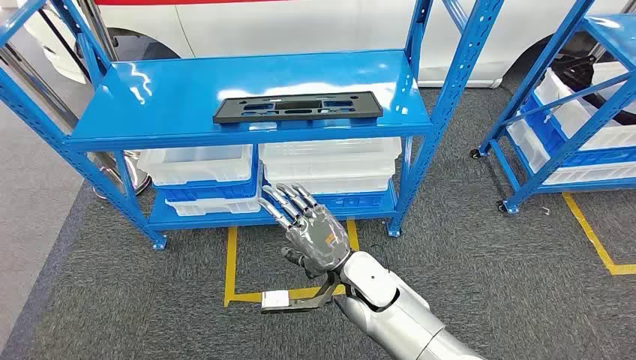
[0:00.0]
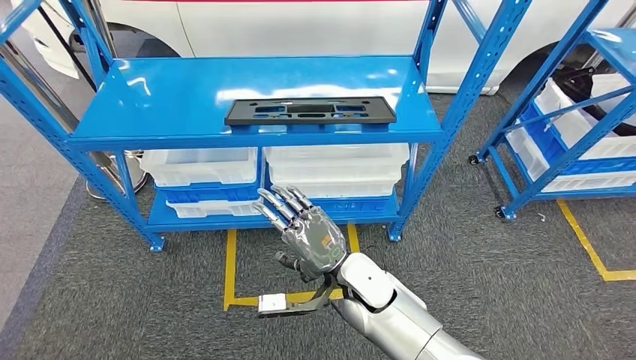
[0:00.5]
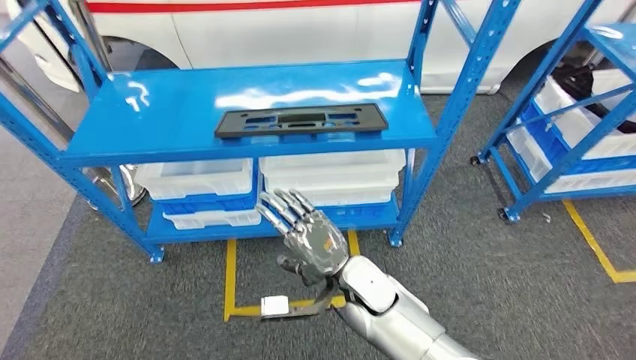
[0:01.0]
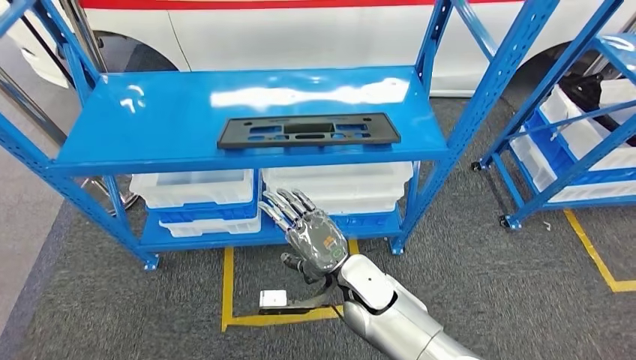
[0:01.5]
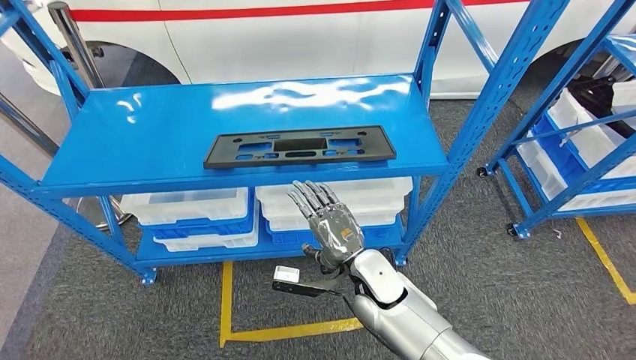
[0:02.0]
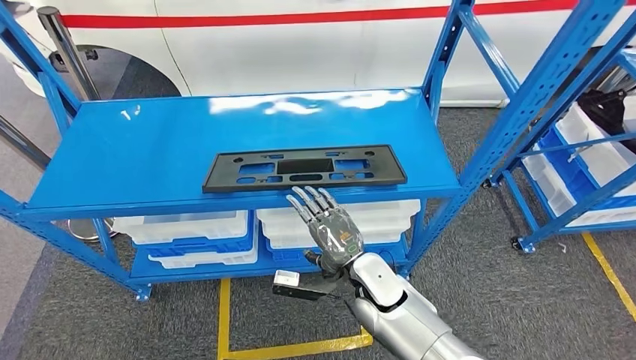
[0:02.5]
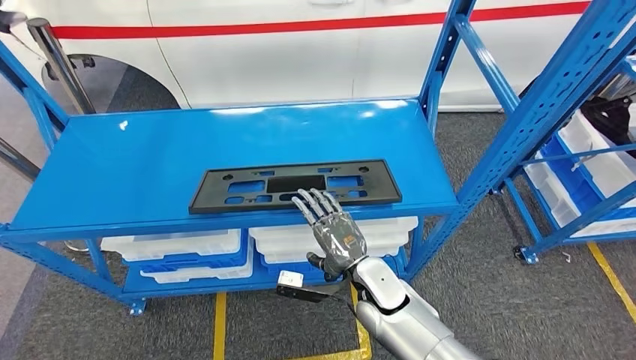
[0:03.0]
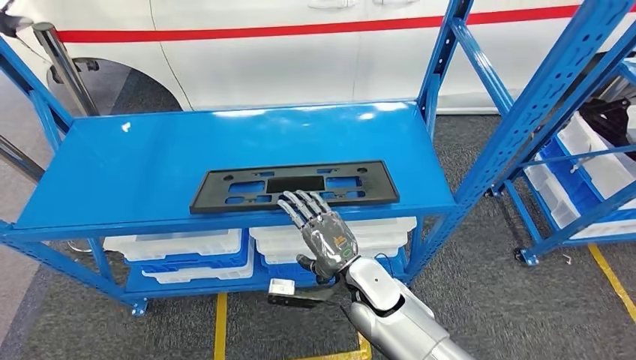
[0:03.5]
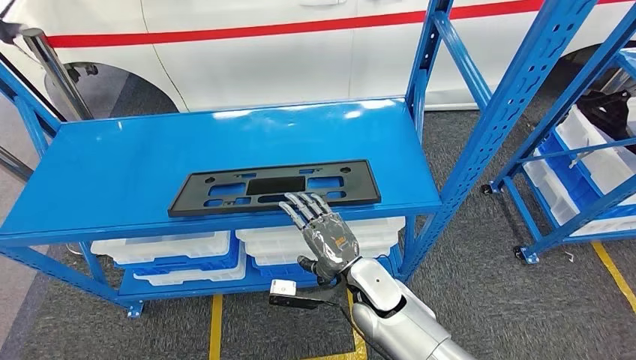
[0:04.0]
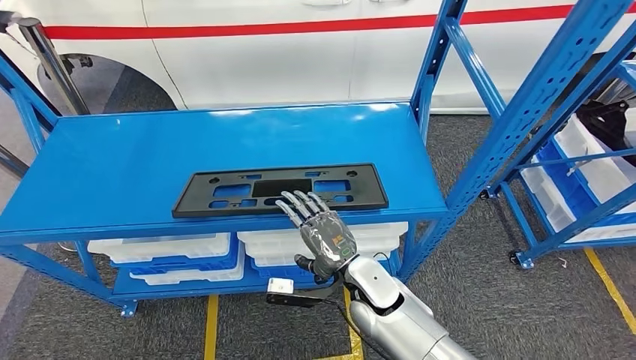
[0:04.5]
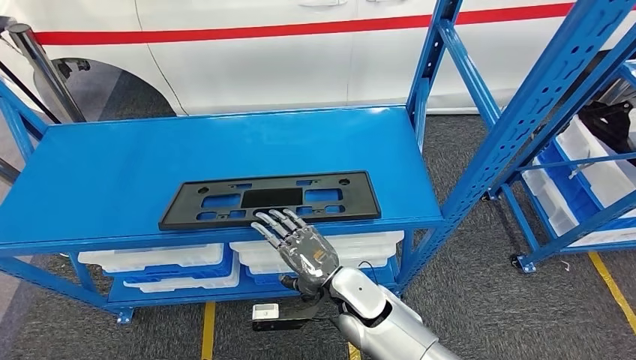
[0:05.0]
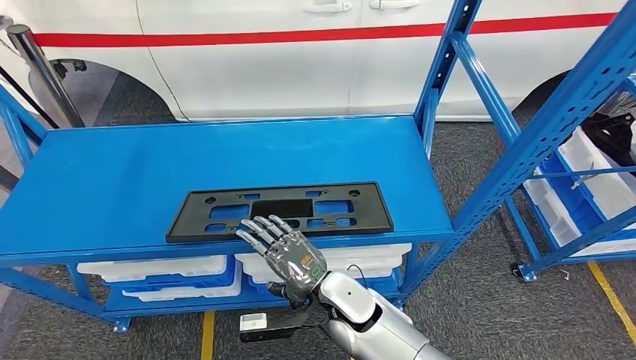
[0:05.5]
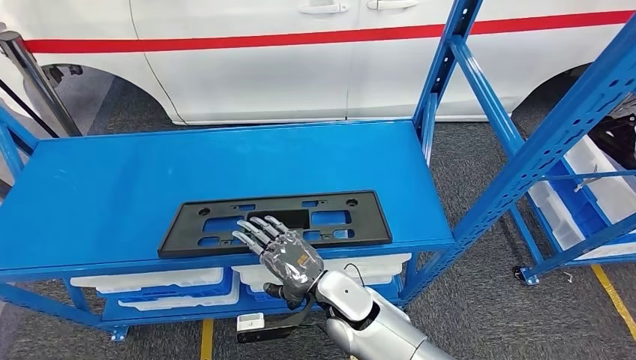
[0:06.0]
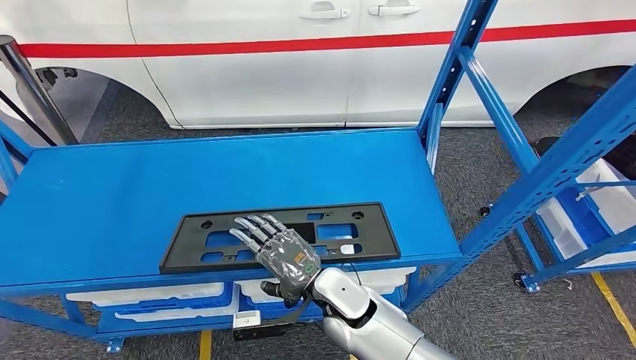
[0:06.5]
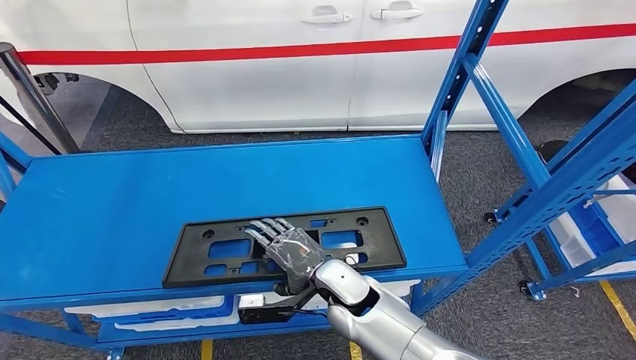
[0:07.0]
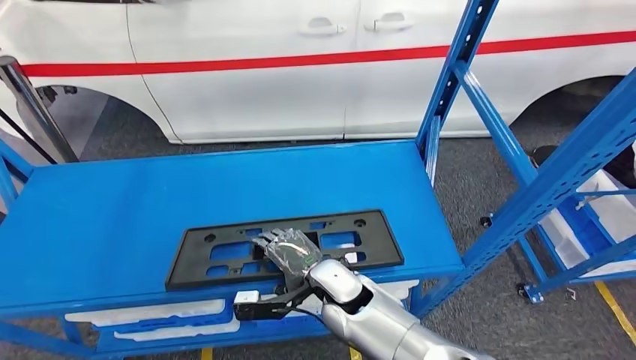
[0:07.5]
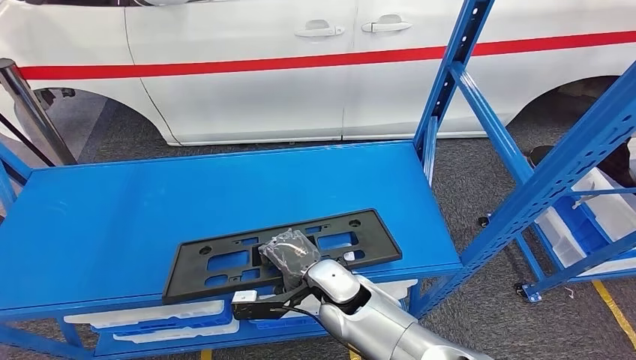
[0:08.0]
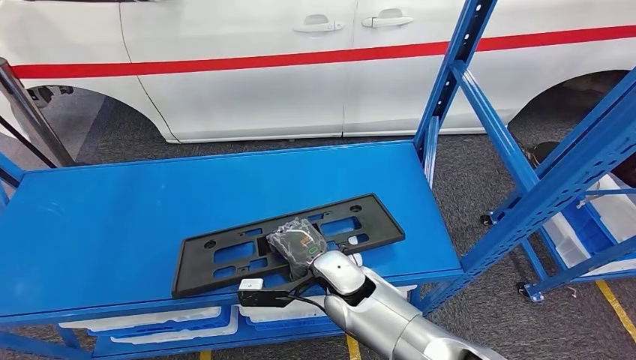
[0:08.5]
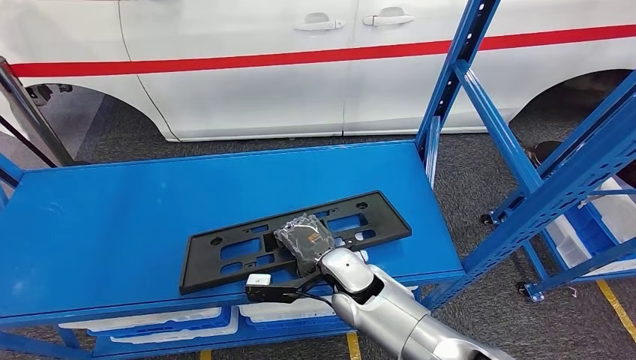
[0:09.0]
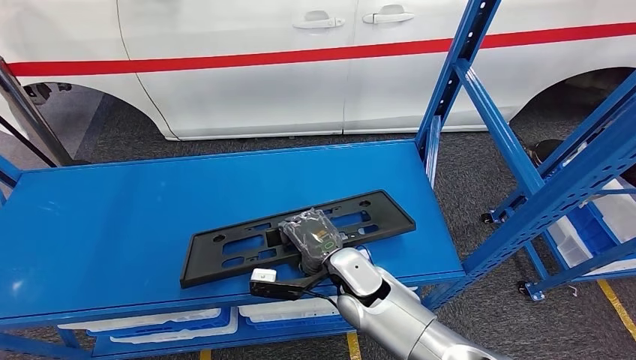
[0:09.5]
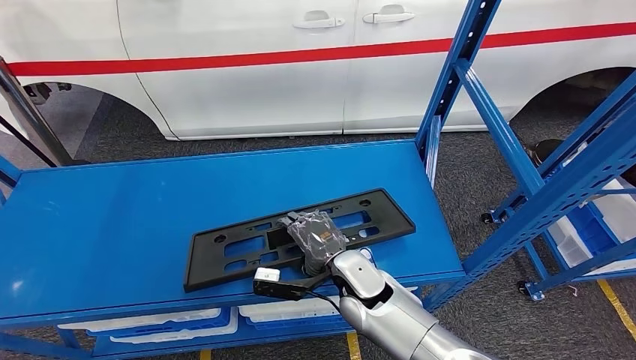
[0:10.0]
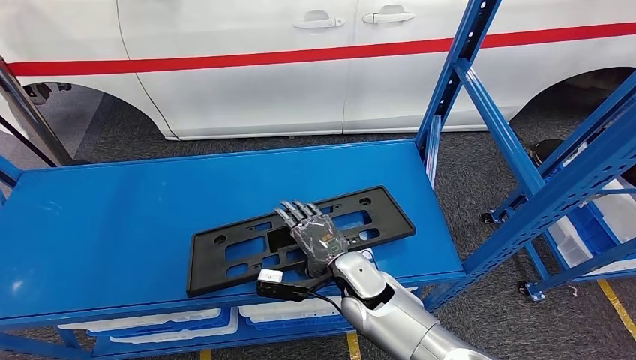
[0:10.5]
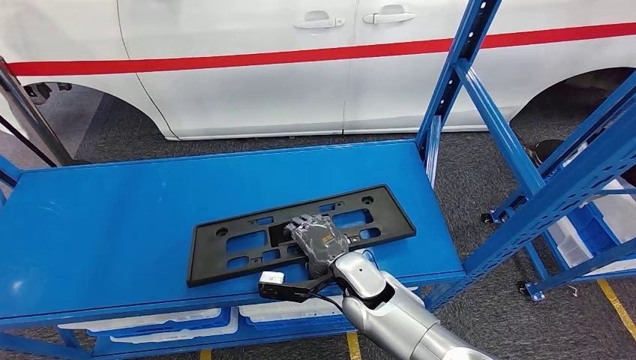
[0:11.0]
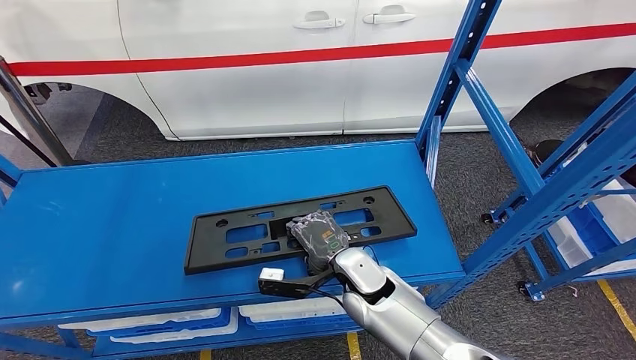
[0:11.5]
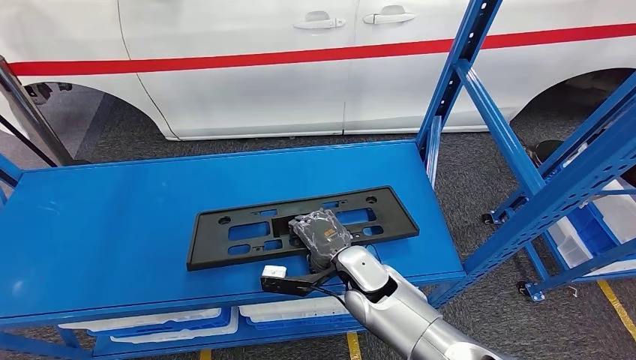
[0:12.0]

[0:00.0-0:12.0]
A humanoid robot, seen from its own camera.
0:10.0 to 0:12.0: The hands make only small movements.

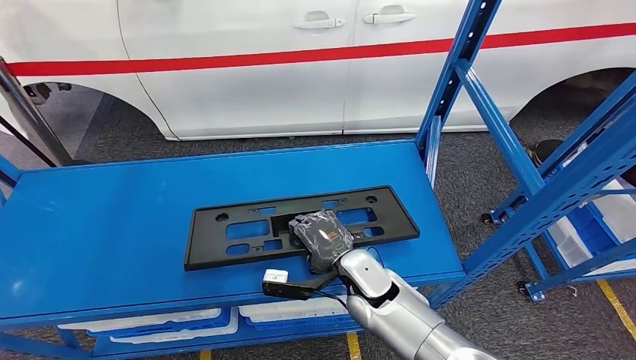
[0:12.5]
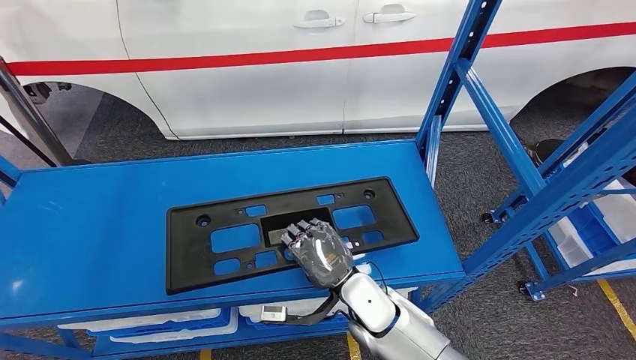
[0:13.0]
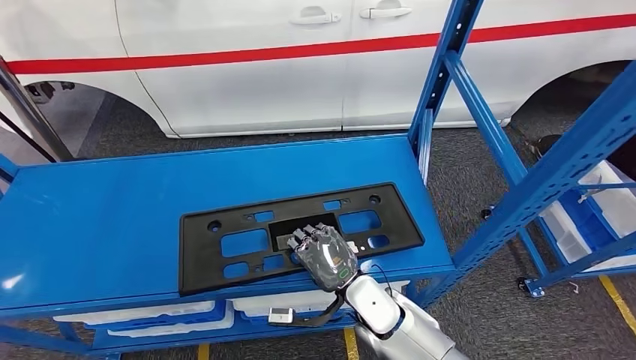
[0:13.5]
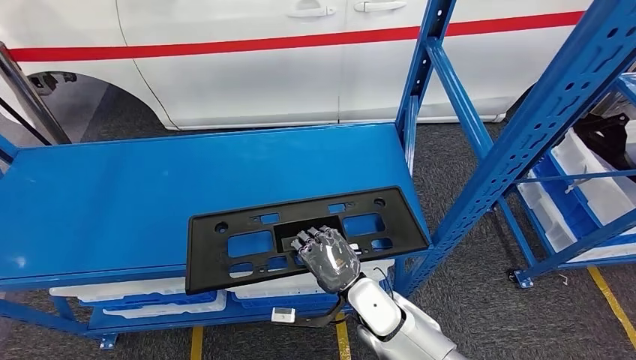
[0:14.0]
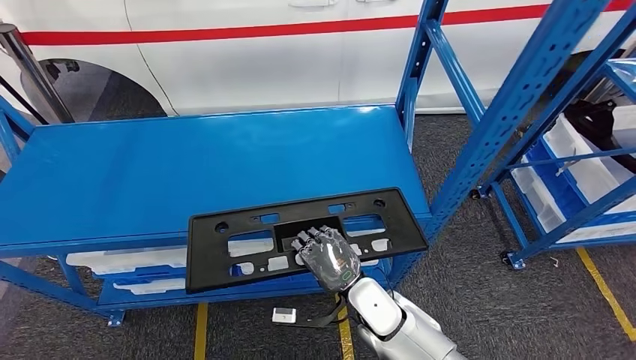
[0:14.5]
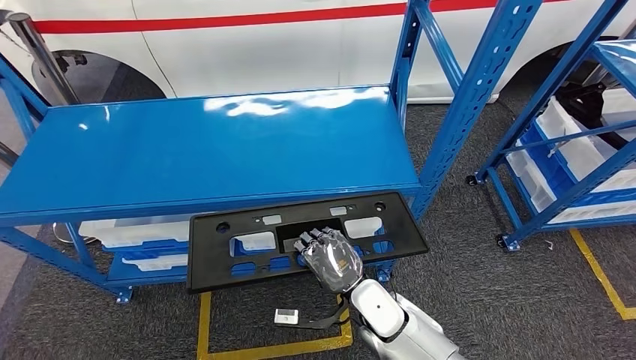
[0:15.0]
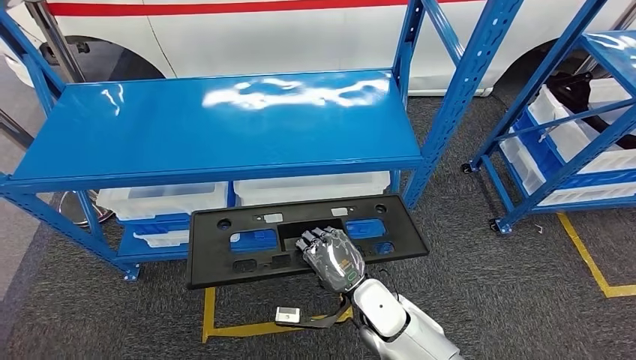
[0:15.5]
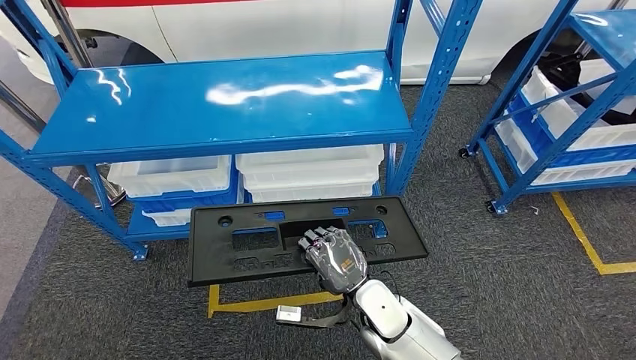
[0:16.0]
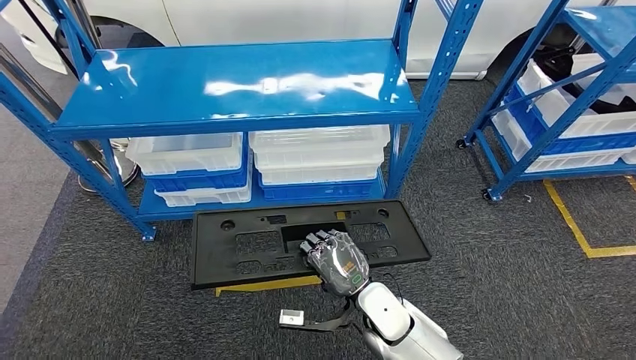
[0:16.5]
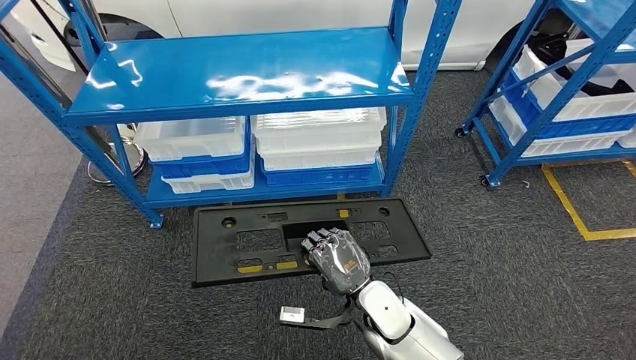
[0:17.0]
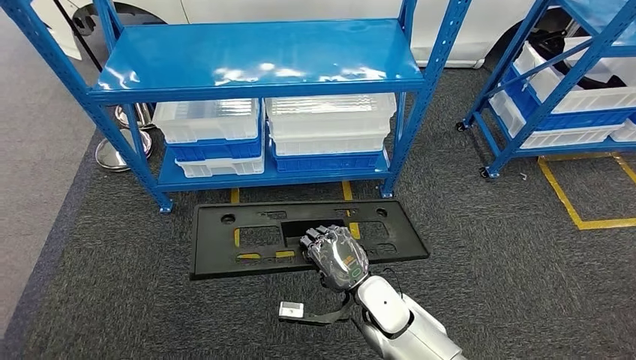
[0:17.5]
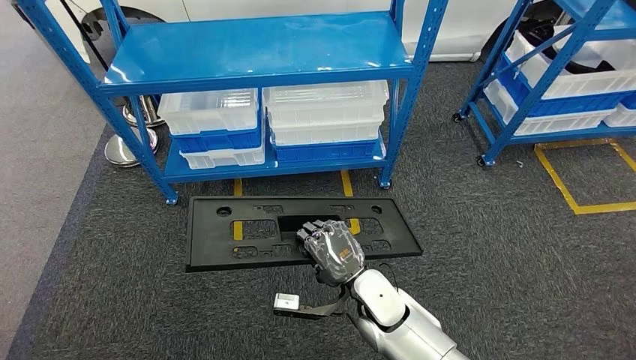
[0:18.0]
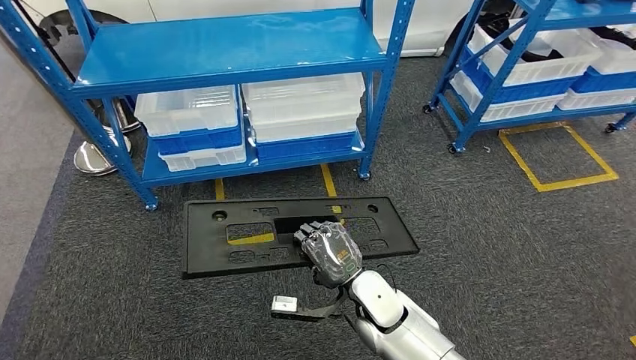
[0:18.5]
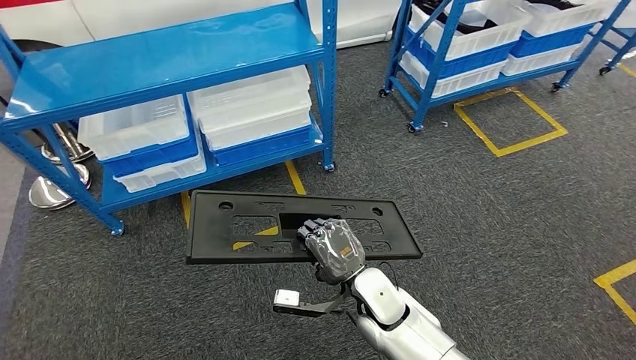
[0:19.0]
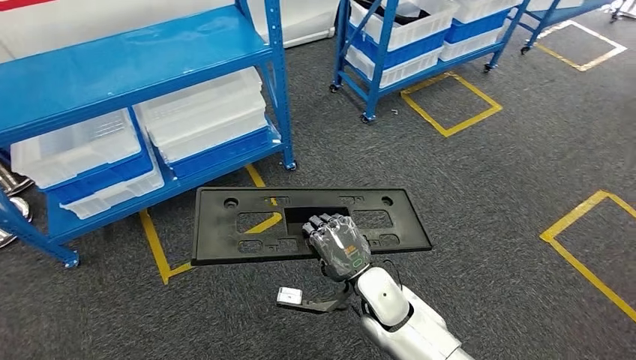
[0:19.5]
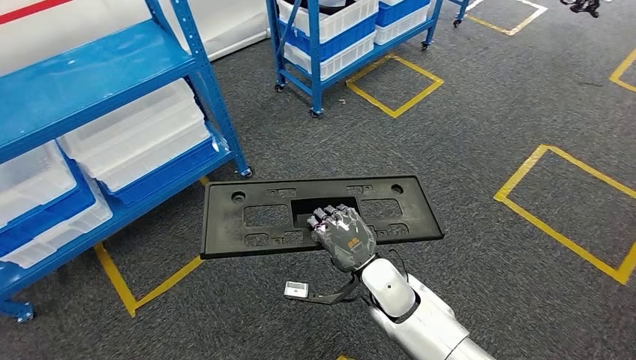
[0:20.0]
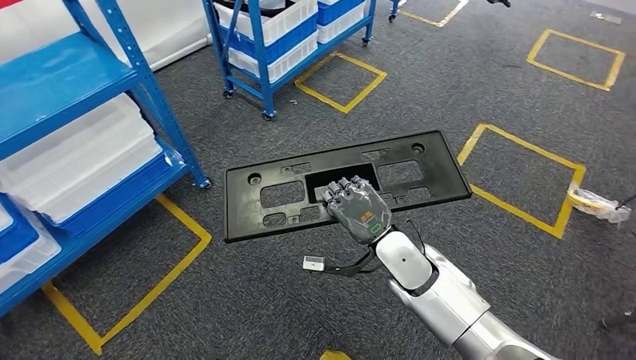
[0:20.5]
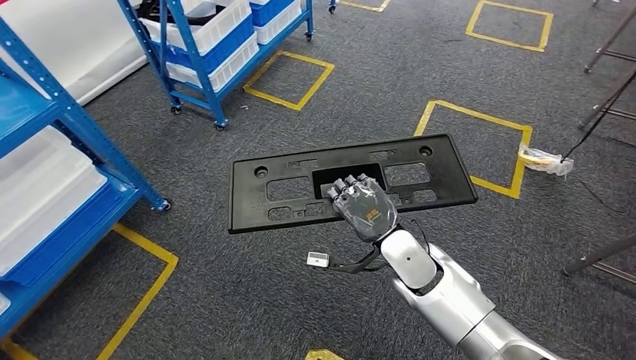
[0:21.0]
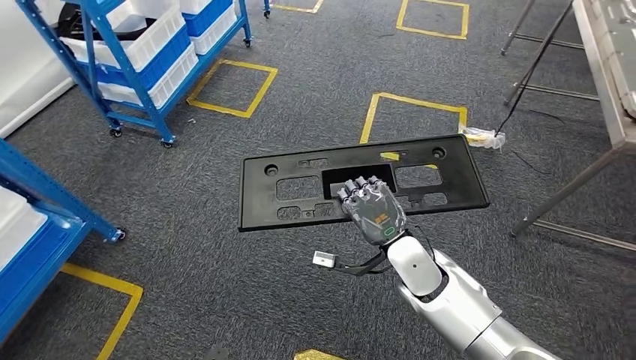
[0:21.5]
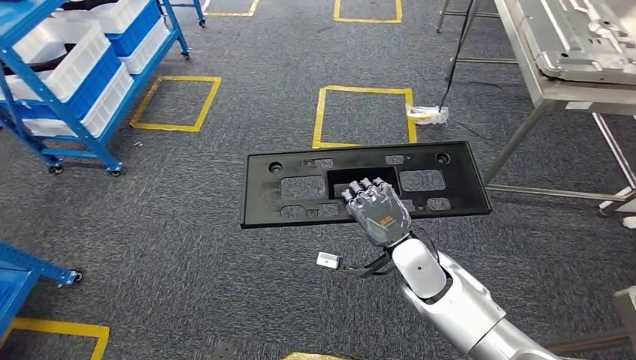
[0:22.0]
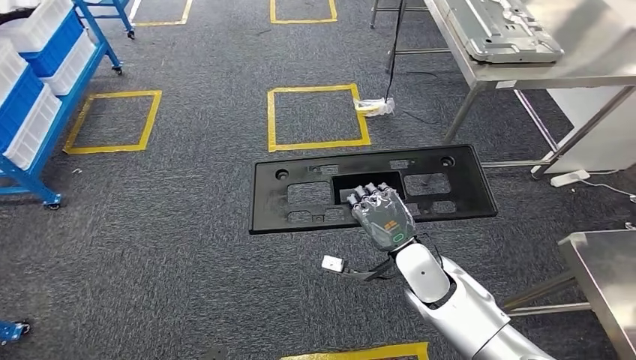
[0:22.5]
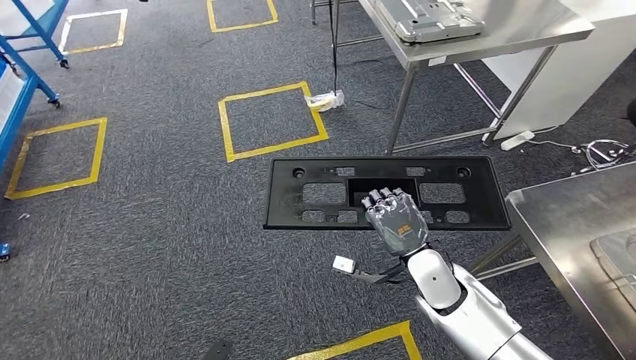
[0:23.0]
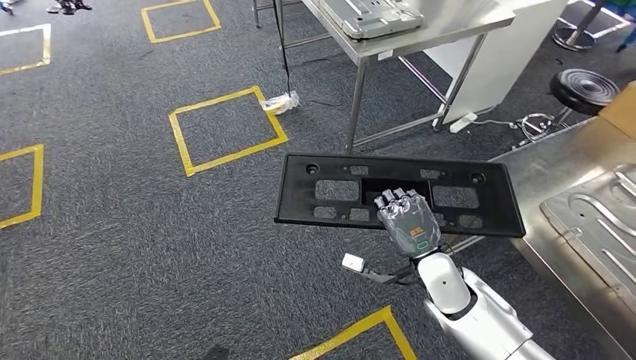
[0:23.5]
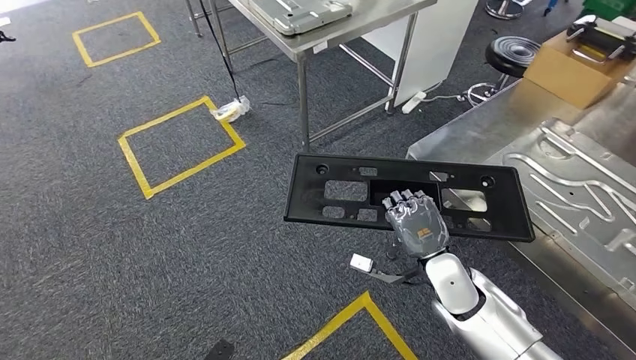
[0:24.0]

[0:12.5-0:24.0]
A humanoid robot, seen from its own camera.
Step, 0:12.5 to 0:14.5: Pick up the large material from the shelf.
